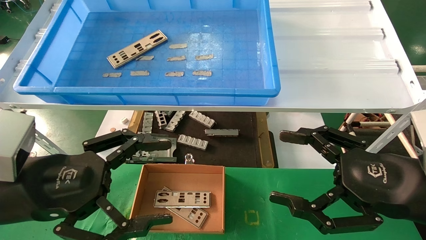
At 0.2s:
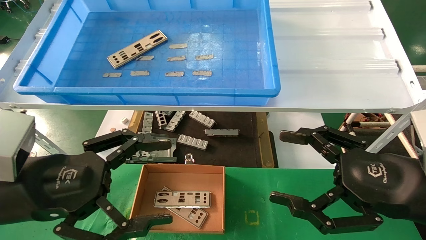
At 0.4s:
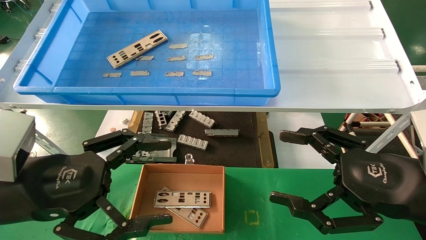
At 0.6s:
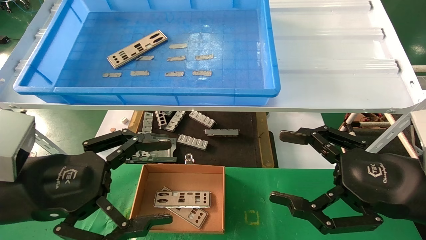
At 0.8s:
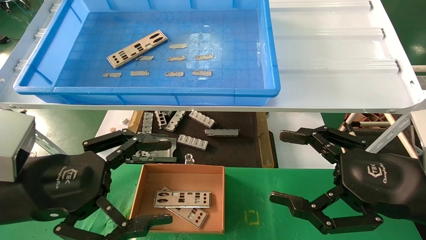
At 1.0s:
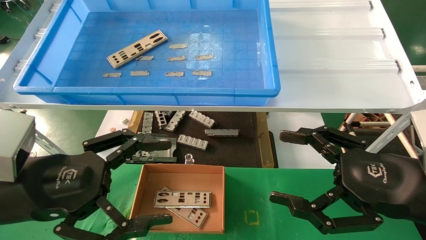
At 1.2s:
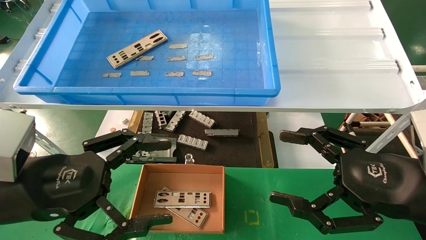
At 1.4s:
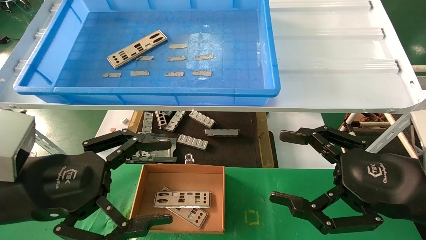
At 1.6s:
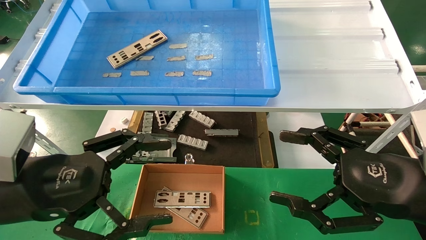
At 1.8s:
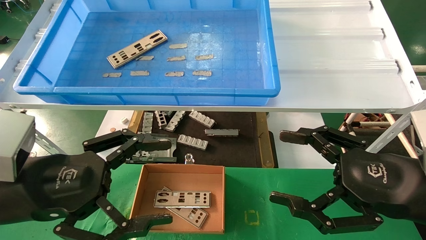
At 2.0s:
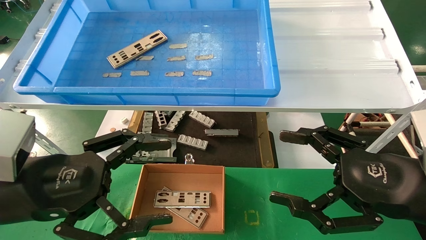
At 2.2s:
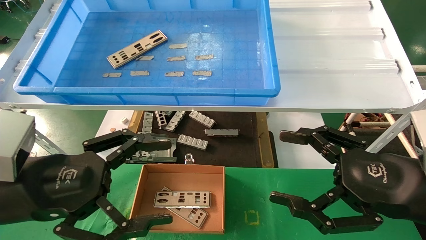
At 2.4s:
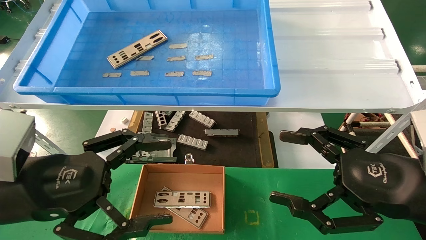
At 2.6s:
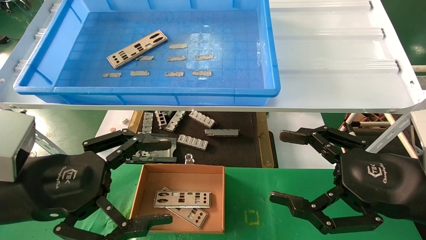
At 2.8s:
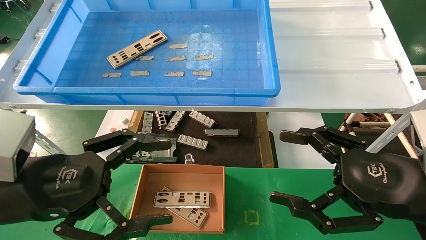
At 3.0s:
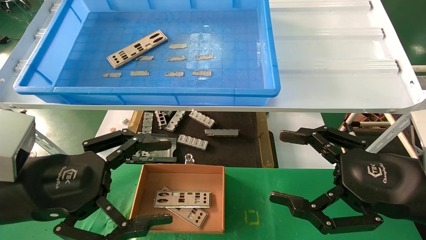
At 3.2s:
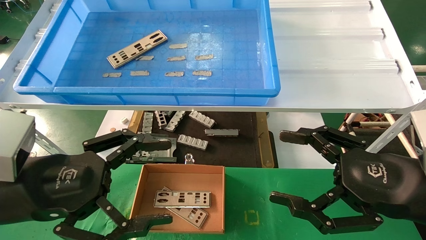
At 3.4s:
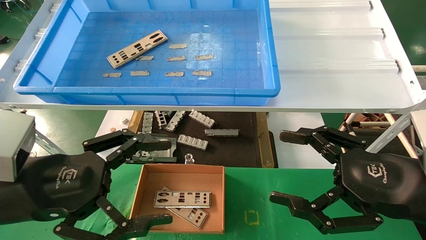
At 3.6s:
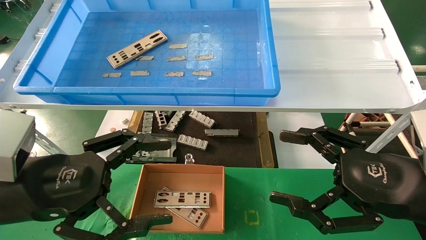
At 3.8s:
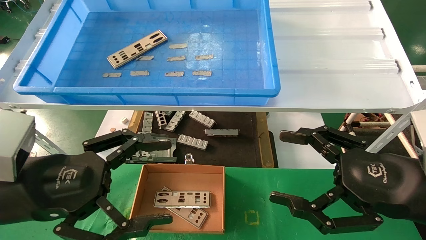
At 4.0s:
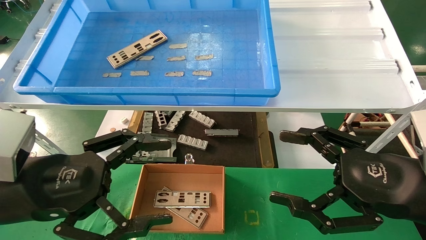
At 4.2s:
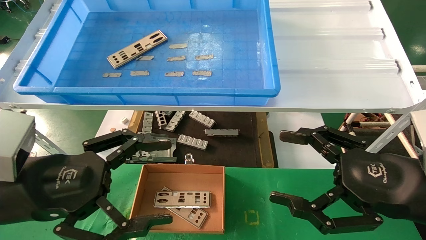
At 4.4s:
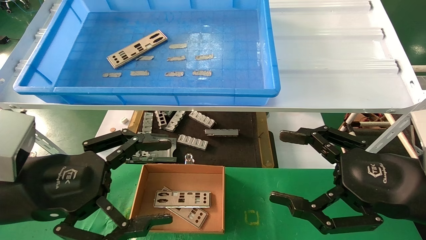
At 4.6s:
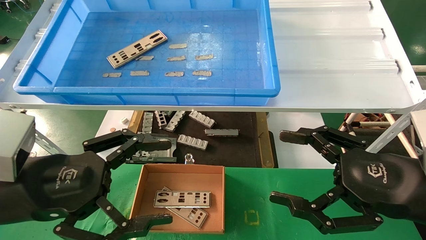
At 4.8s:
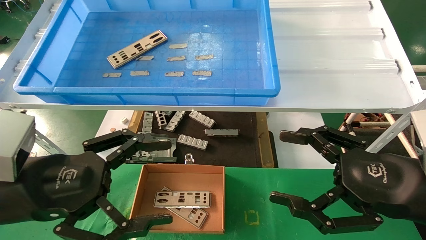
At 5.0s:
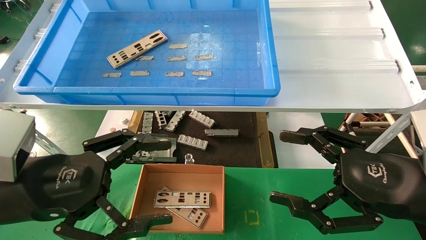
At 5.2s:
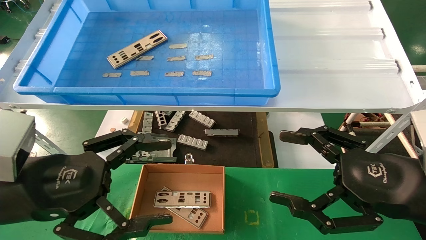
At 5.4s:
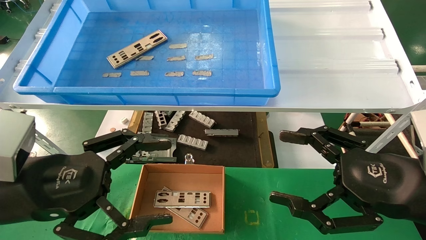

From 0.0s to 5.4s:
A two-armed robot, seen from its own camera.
Task of the whole recording: pick up the parts on the tray and put them in the cardboard box.
From 0.0s to 5.4s: Neither gripper changes place.
